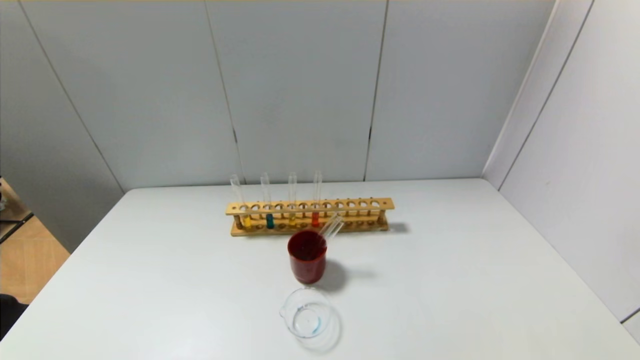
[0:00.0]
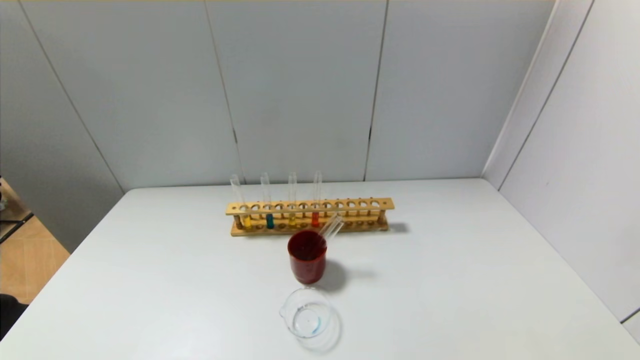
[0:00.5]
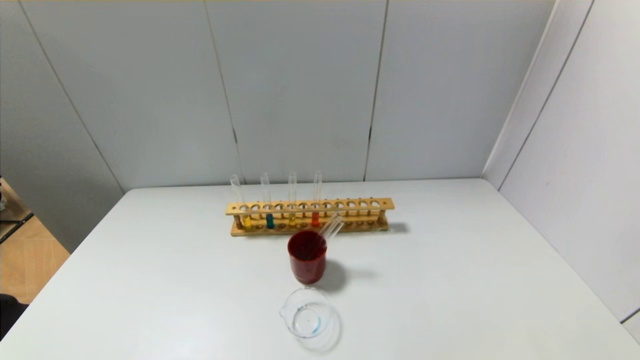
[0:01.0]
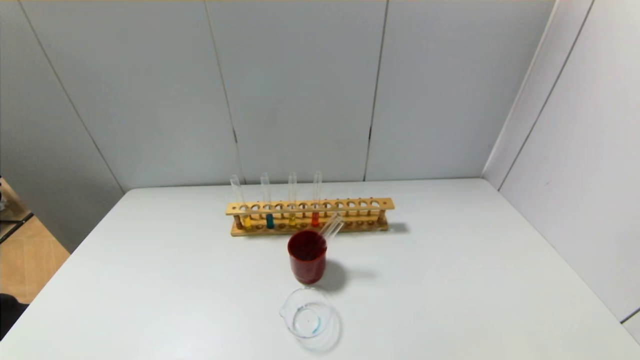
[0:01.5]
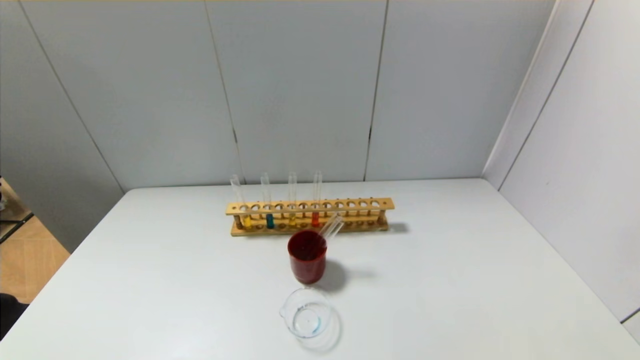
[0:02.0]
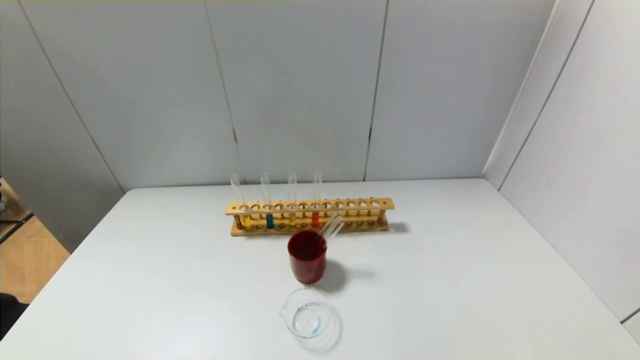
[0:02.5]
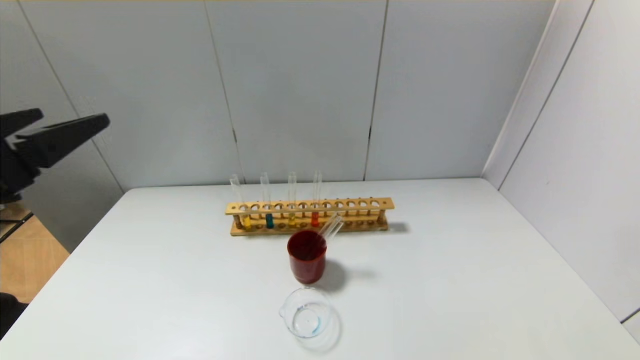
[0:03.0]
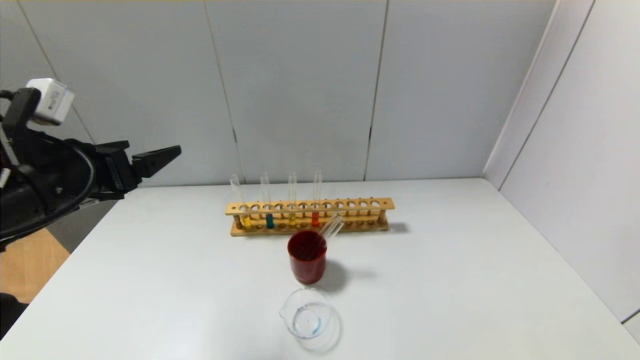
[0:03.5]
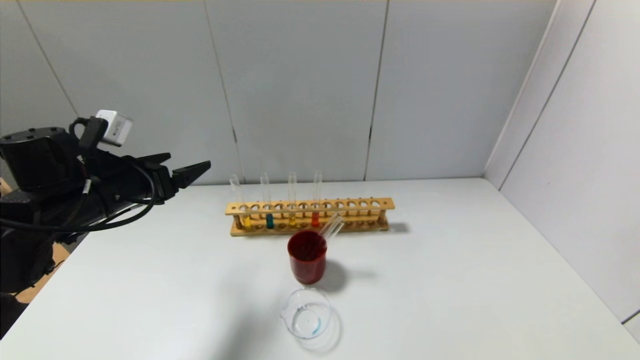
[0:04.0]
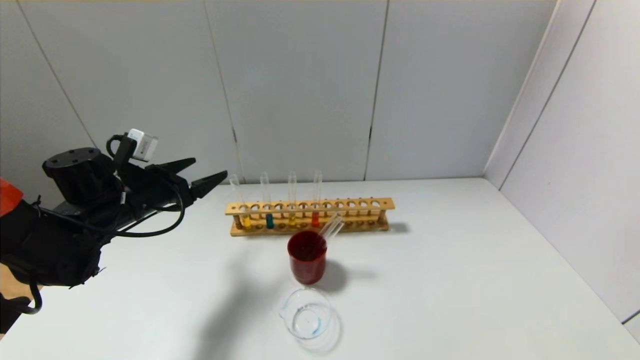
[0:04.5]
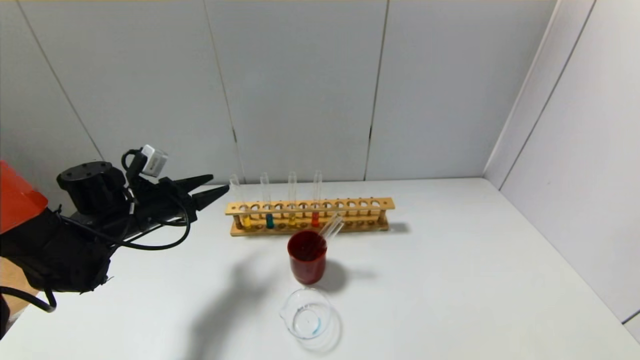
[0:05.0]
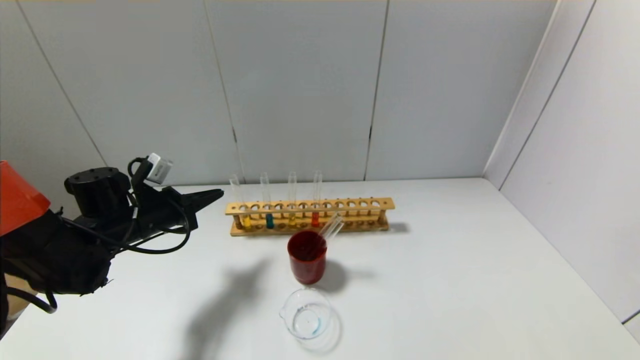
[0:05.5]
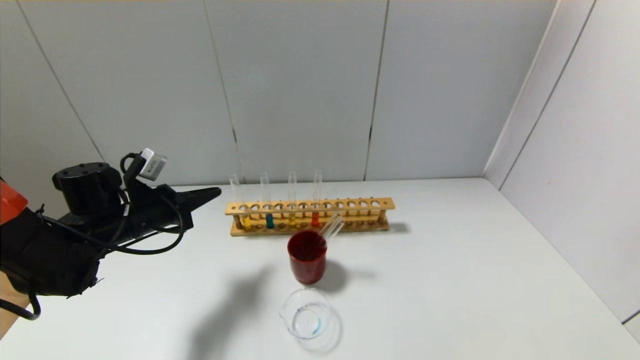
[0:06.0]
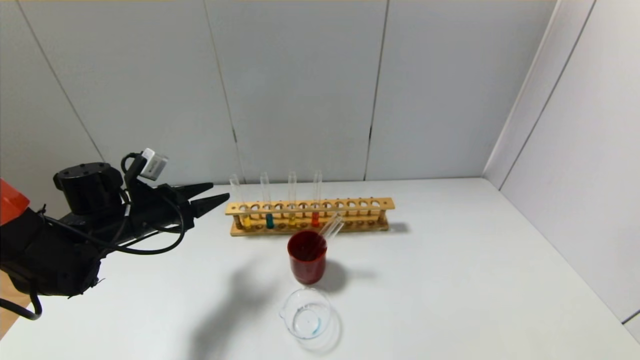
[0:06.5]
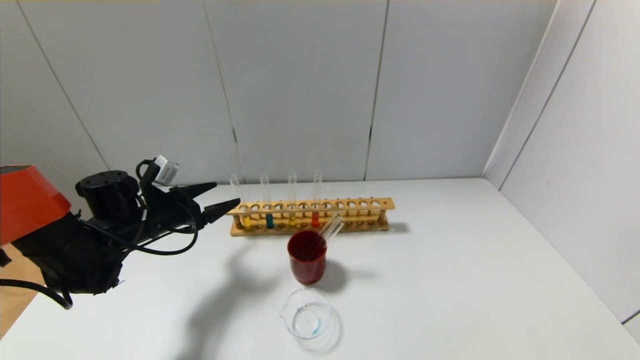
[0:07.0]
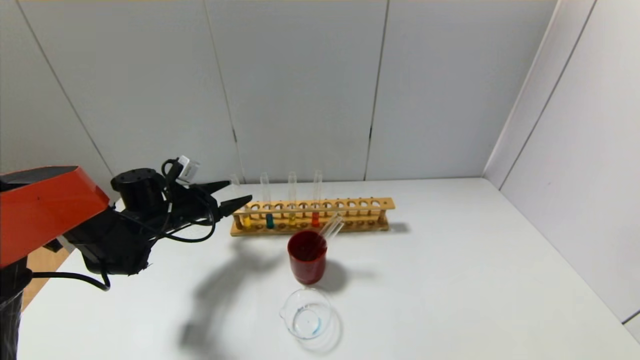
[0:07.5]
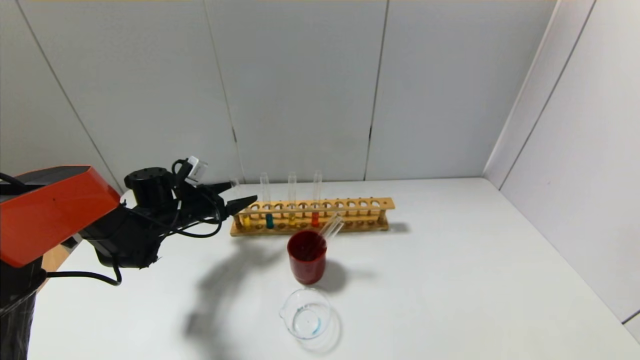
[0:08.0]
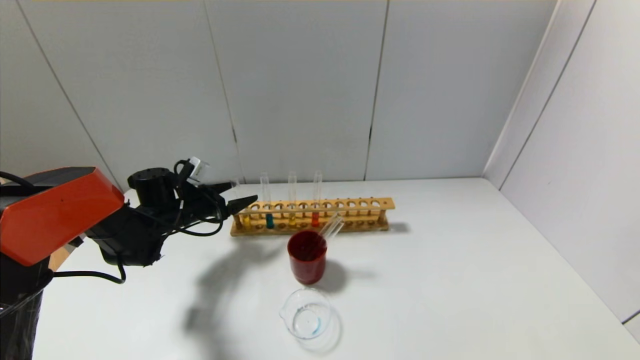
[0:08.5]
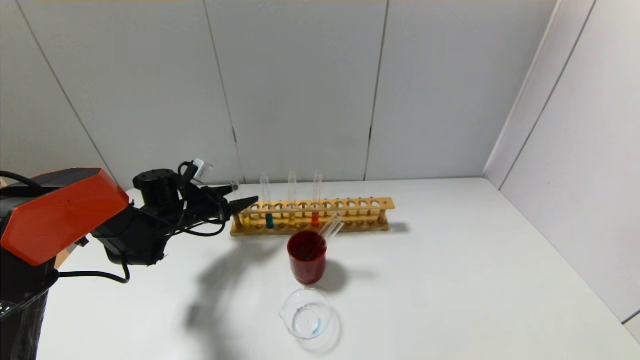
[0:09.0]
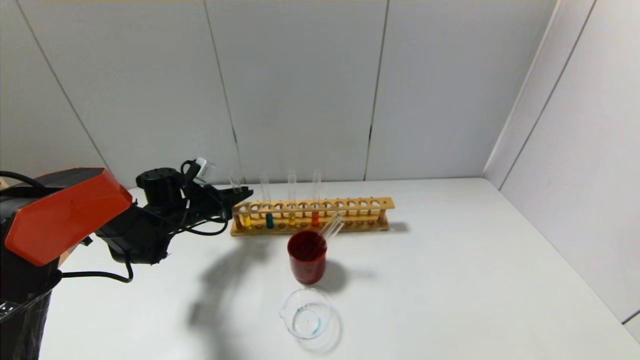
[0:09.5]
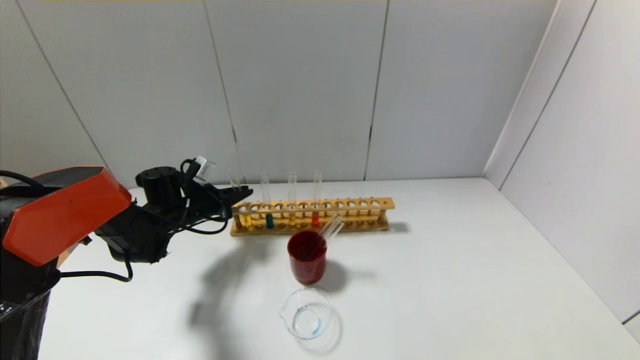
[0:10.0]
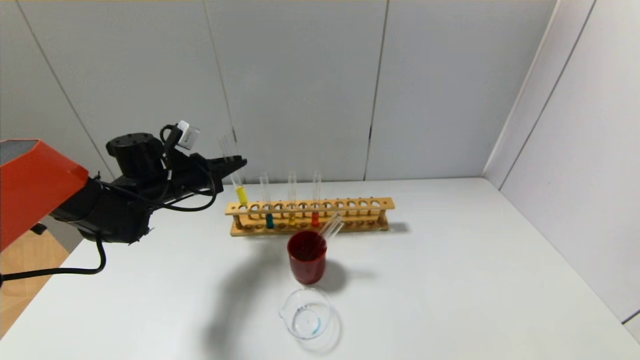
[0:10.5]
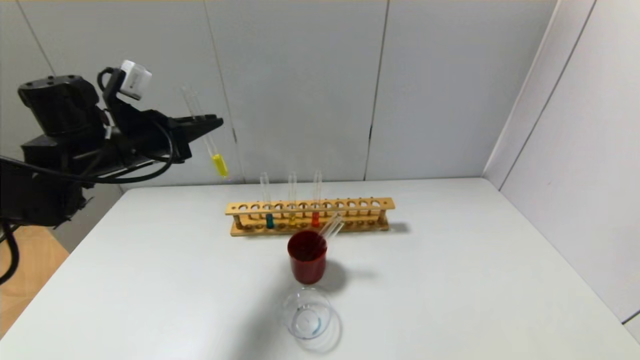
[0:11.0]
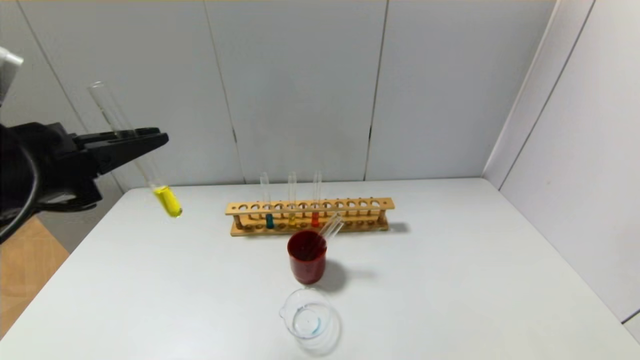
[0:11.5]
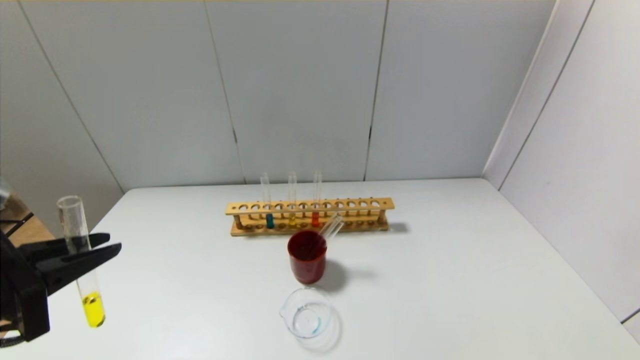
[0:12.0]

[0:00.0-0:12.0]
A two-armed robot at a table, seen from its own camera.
Step, 0:00.0 to 0:09.5: Grasp the yellow reagent with the left gripper.
0:02.0 to 0:04.0: The left gripper is displaced forward by roughly 35 cm.
0:04.0 to 0:06.0: The left gripper heads downward, covering roughly 5 cm, and closes its fingers.
0:06.0 to 0:08.0: The left gripper heads forward and downward, covering some 10 cm, and opens up.
0:08.0 to 0:10.0: The left gripper closes up.
0:10.0 to 0:12.0: The left gripper shifts about 35 cm backward and upward.

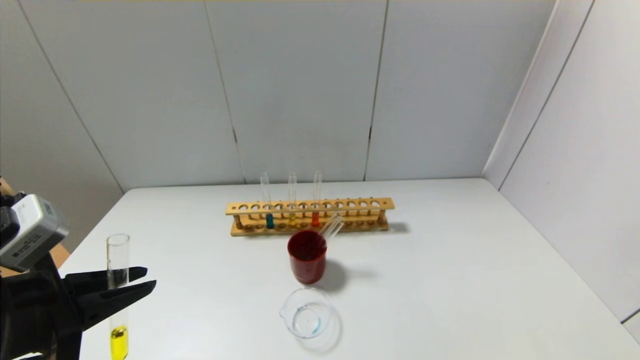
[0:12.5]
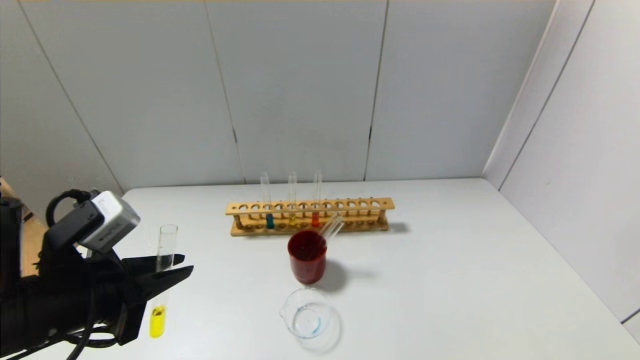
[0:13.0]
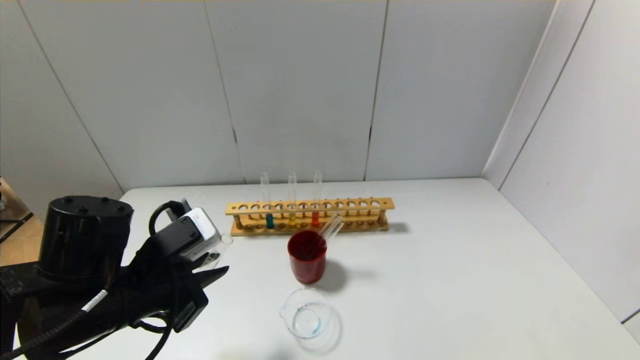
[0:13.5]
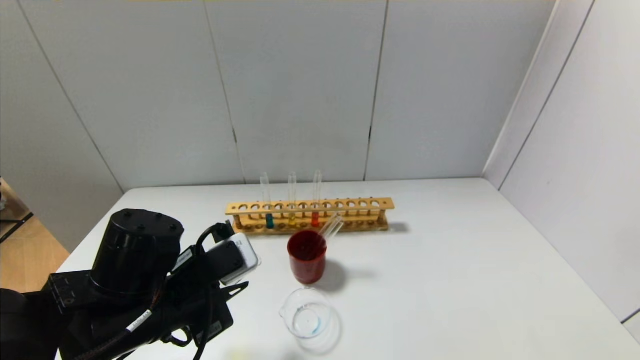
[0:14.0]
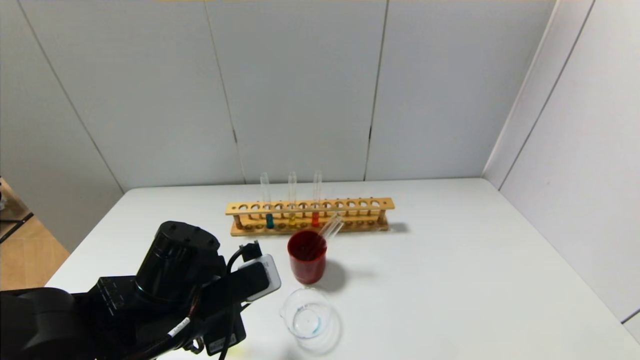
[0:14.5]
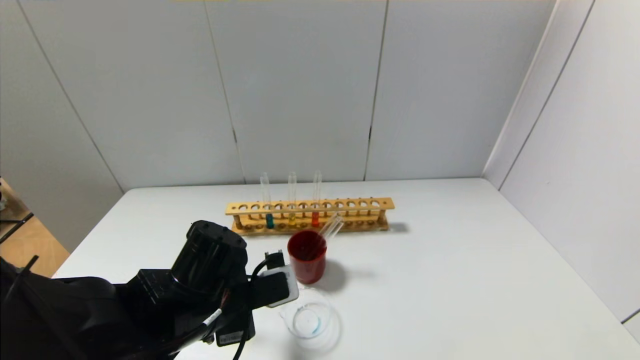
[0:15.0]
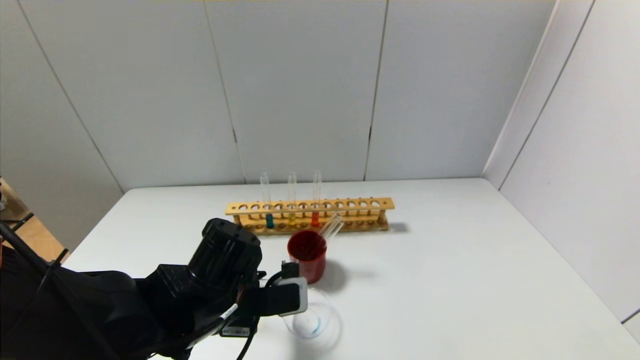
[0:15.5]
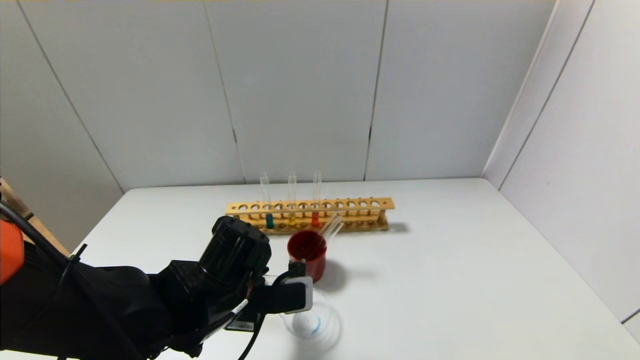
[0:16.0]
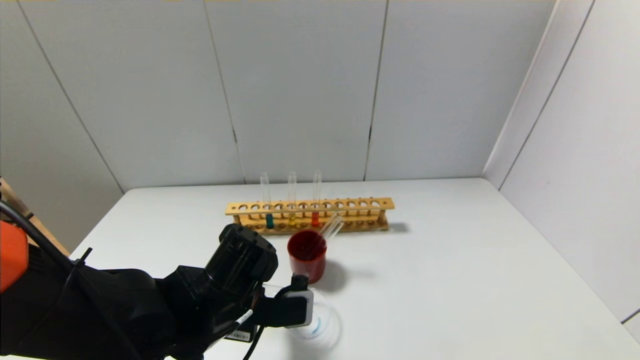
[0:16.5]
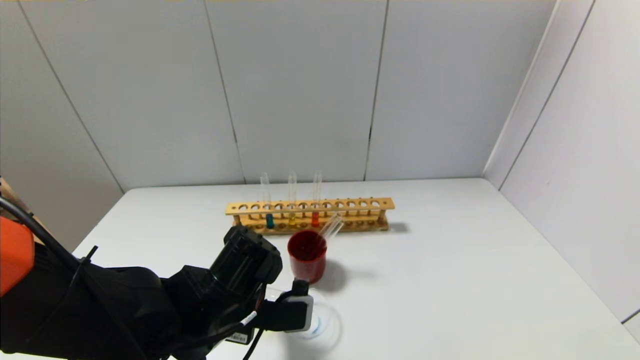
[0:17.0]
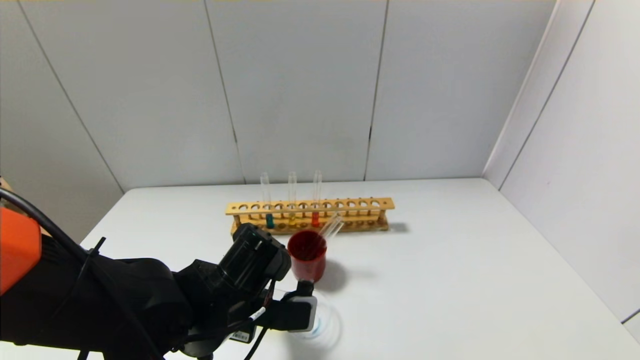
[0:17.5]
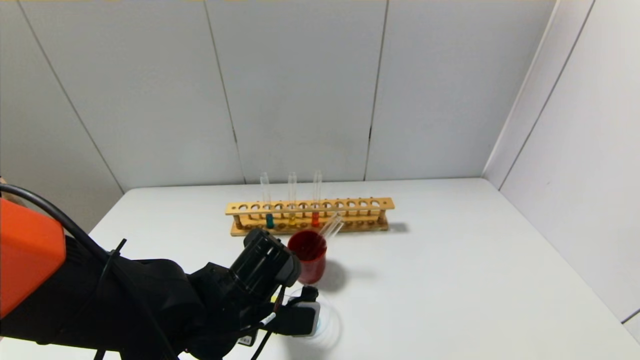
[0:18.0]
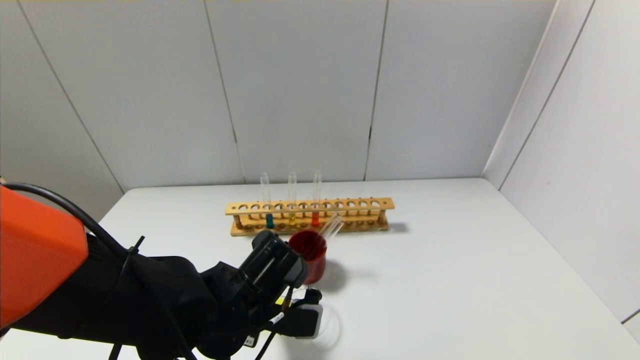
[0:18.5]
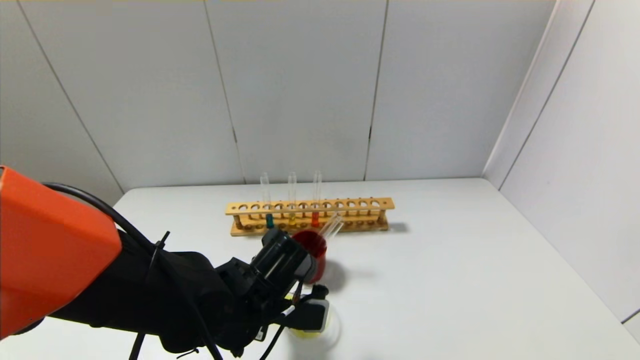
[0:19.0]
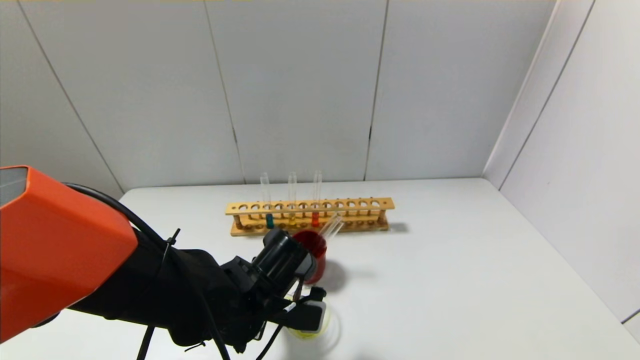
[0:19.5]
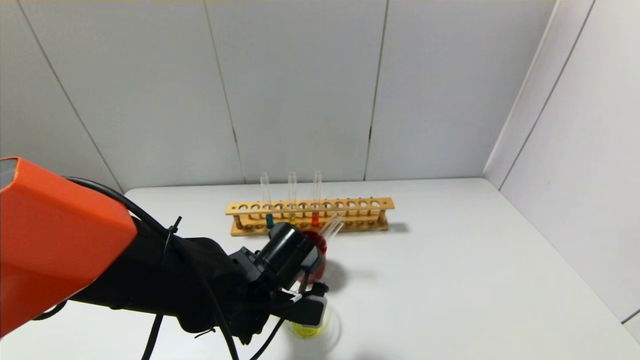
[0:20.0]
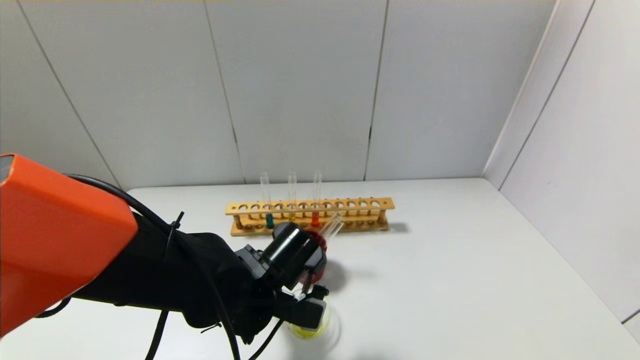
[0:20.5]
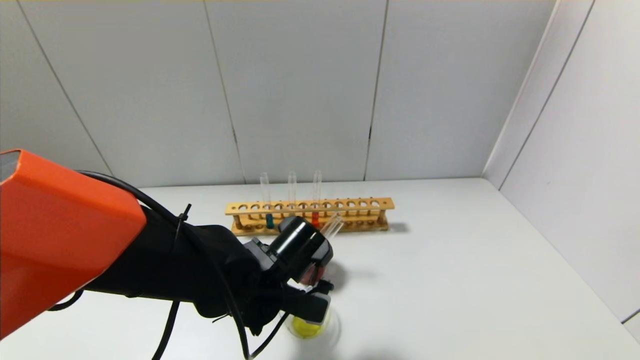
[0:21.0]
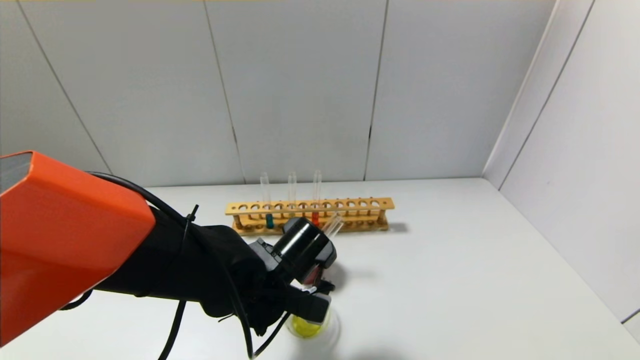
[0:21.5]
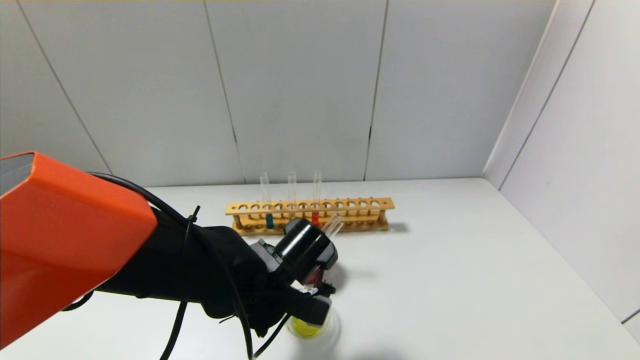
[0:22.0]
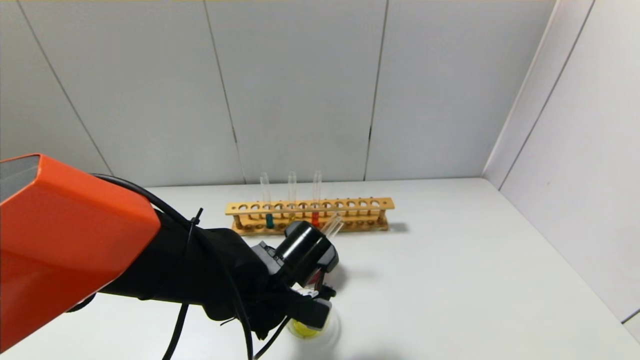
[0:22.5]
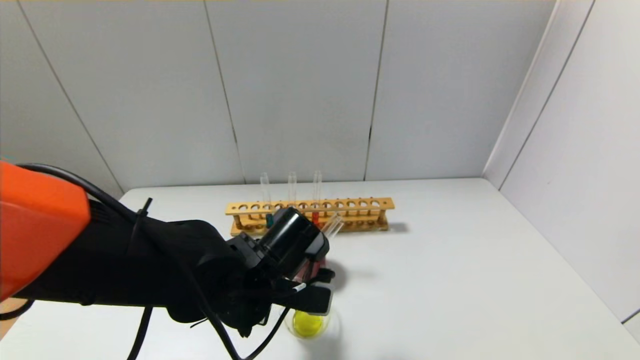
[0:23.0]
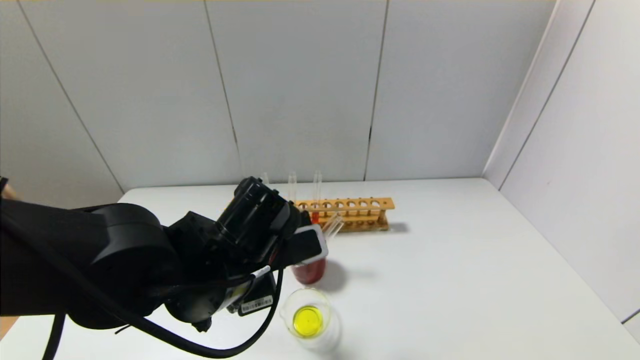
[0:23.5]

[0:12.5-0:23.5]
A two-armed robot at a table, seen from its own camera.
0:12.5 to 0:14.5: The left gripper goes some 15 cm to the right, downward and forward.
0:16.0 to 0:18.0: The grippers stay close to where they were, moving slightly.
0:18.0 to 0:21.5: There are only small adjustments of the grippers.
0:21.5 to 0:23.5: The left gripper heads upward, covering roughly 5 cm.
